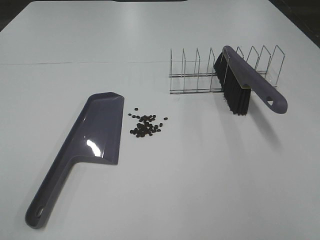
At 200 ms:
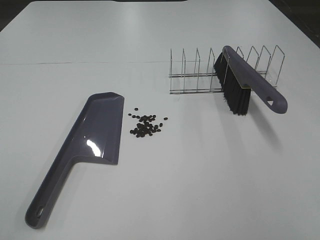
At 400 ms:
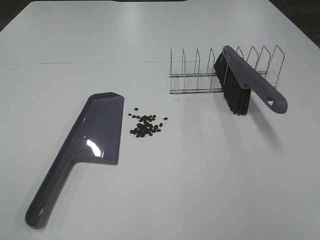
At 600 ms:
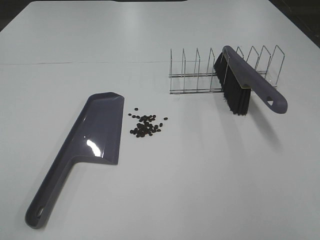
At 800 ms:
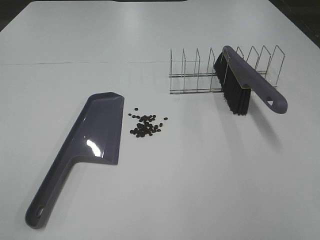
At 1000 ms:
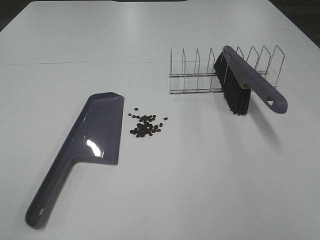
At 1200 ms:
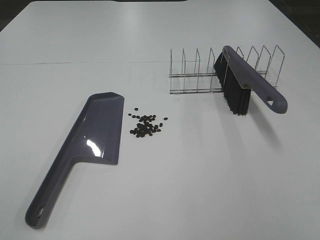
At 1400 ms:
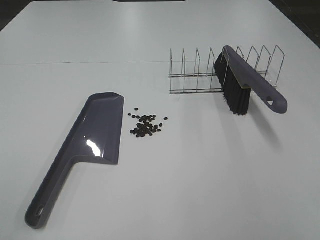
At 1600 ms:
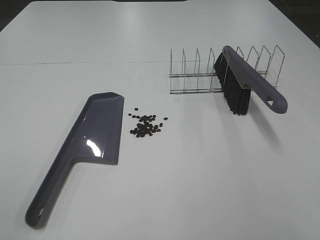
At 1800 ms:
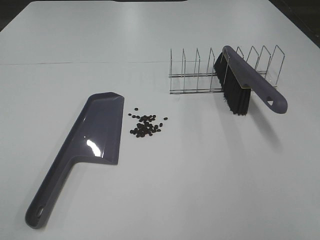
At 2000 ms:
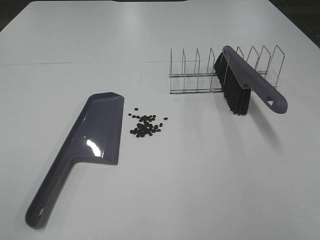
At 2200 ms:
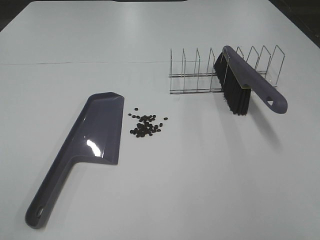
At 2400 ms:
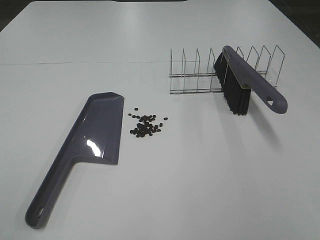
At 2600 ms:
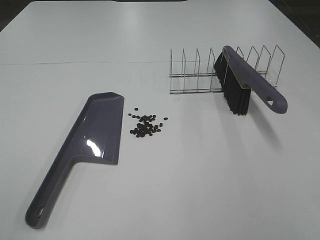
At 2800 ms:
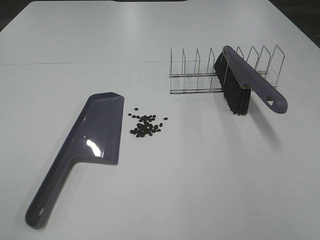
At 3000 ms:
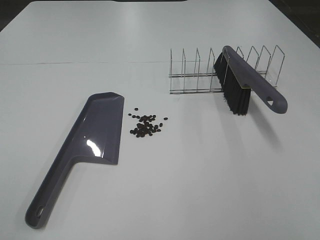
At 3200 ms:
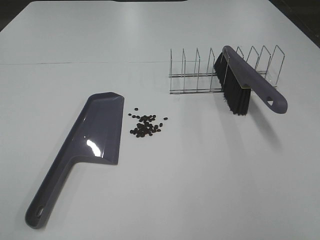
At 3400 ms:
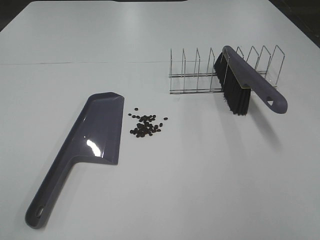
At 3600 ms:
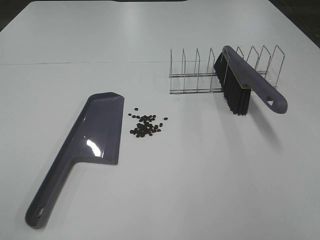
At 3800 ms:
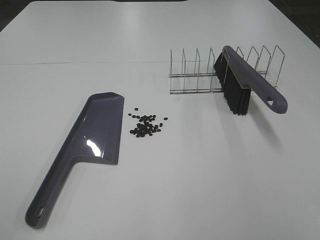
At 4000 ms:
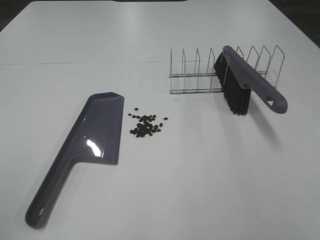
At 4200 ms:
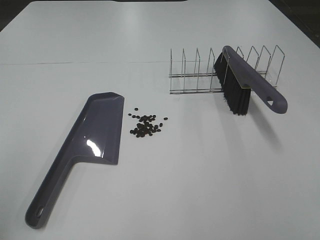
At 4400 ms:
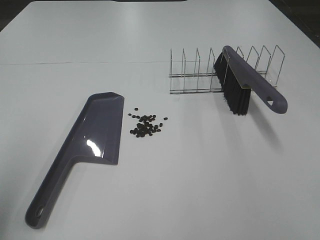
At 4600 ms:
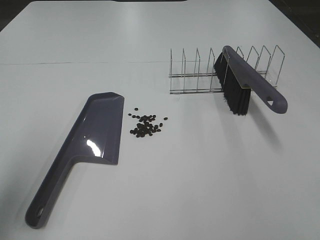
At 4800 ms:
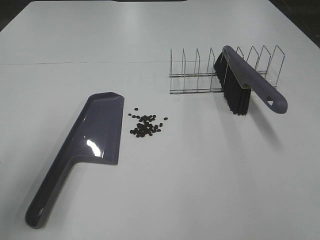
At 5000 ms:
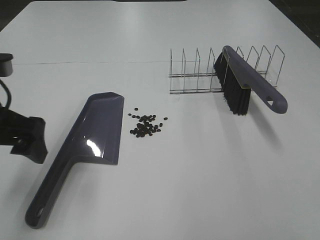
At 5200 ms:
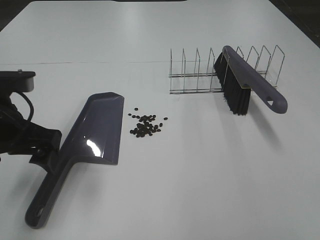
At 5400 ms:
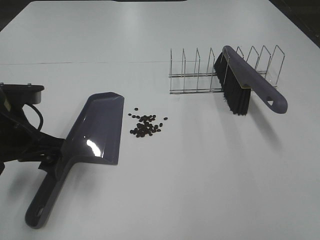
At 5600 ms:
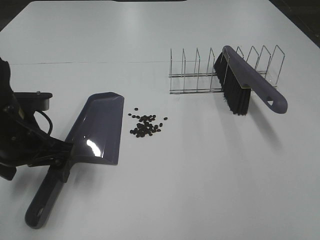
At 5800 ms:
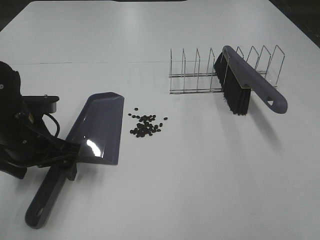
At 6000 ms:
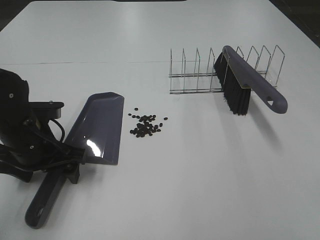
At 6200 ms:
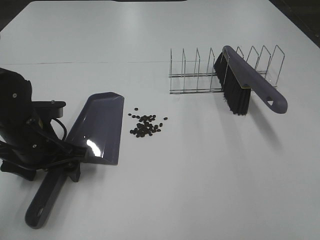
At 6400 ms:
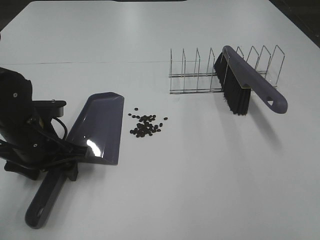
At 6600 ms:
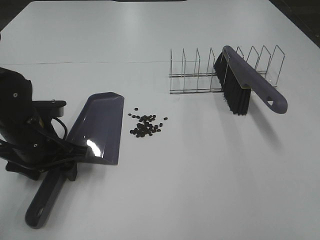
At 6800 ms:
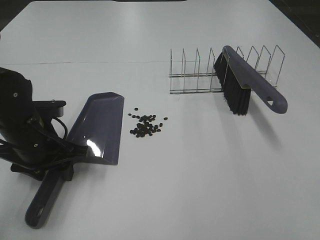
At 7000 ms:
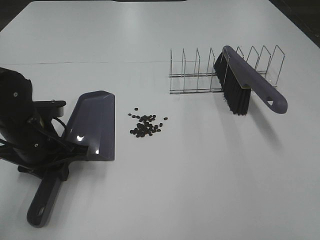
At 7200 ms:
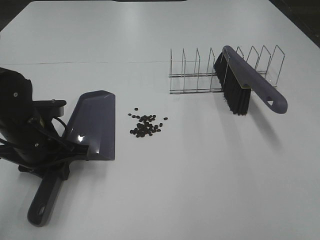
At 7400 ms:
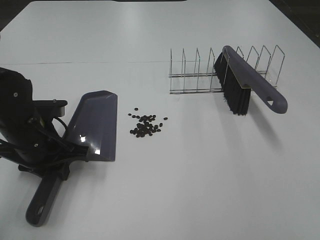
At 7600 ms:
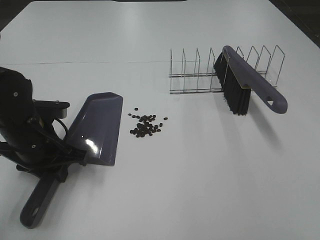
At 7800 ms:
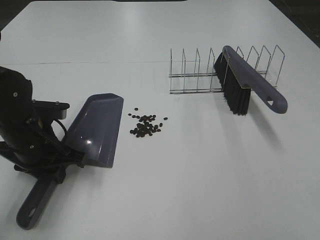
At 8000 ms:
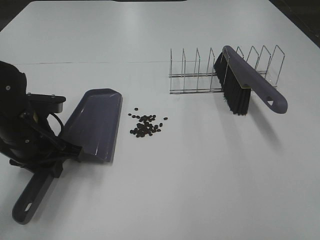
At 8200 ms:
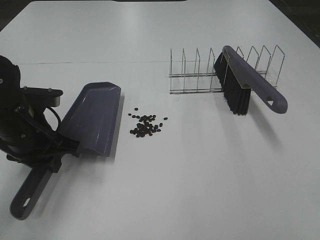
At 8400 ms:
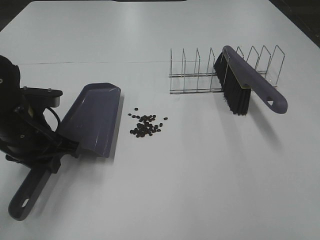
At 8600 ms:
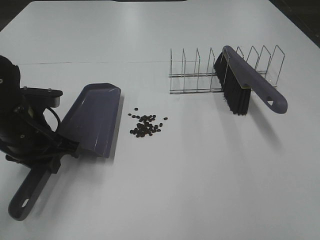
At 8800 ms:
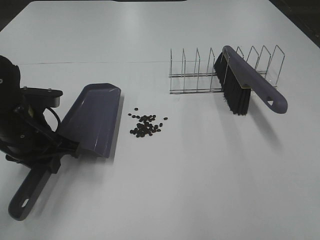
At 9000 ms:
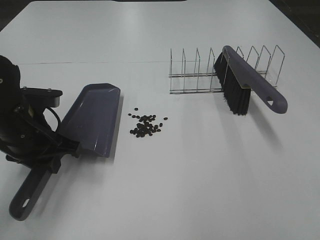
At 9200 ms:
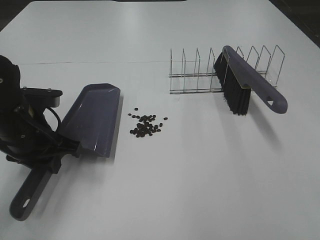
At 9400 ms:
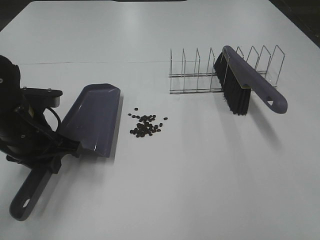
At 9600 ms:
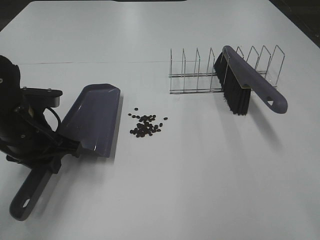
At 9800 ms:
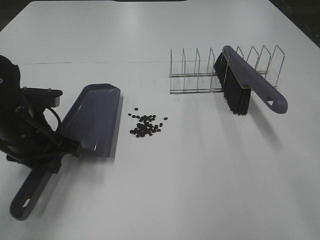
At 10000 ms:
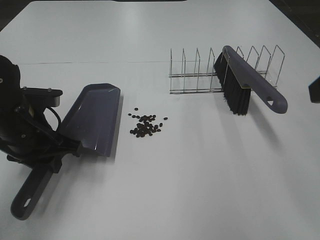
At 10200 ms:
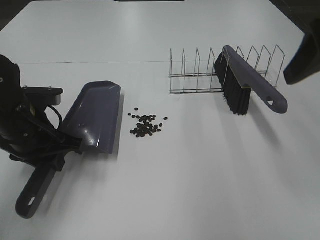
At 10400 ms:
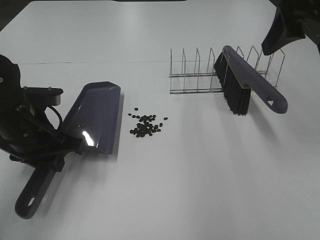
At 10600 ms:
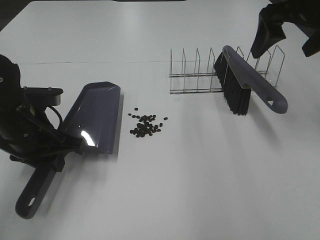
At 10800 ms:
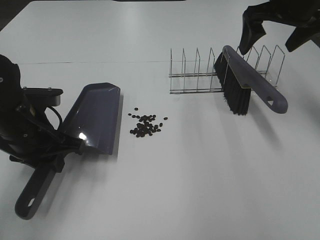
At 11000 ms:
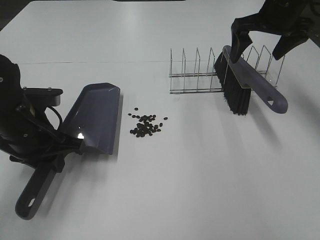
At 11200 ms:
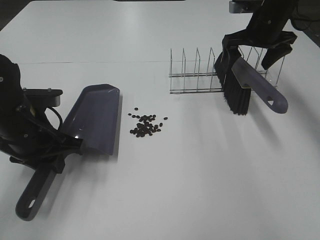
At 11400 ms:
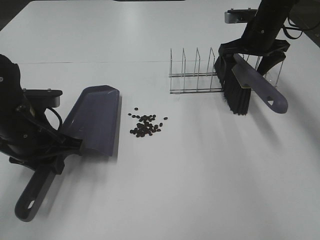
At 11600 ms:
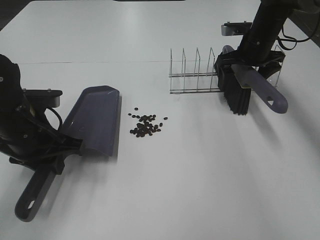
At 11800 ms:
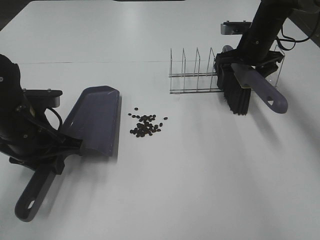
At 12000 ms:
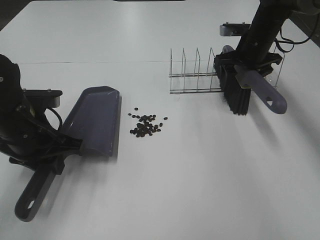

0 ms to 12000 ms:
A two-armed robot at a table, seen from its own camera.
Task of the whole recording: Sweep Coffee Bean.
Step, 0 ms to 7400 ms: Left hand: grab the dustpan.
0 ms to 3000 ms: Neither gripper changes place.
3000 ms to 4400 ms: The left gripper is displaced forward by roughly 15 cm.
4400 ms to 6000 ms: The left gripper goes about 25 cm downward, forward and to the right.
6000 ms to 7600 ms: The left gripper closes its fingers.
9000 ms to 10400 ms: The right gripper moves forward, roughly 30 cm.
10400 ms to 12000 ms: The right gripper moves forward and downward, approximately 25 cm, and closes up.

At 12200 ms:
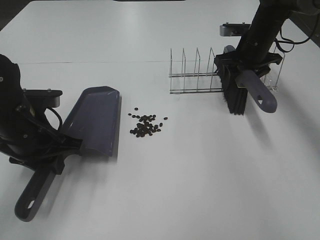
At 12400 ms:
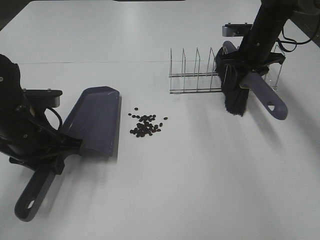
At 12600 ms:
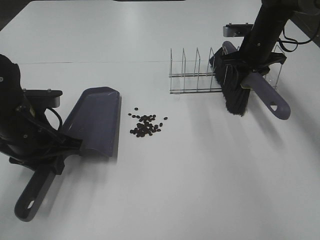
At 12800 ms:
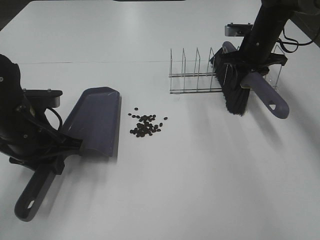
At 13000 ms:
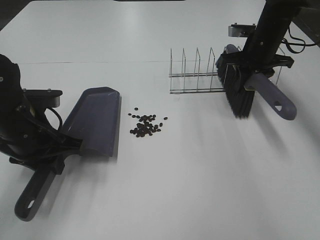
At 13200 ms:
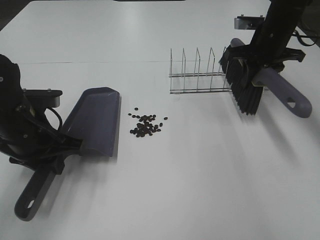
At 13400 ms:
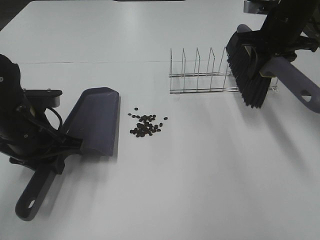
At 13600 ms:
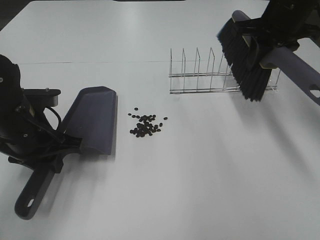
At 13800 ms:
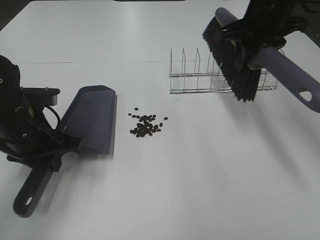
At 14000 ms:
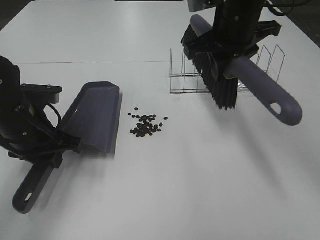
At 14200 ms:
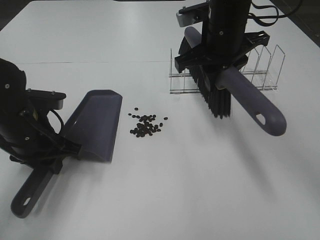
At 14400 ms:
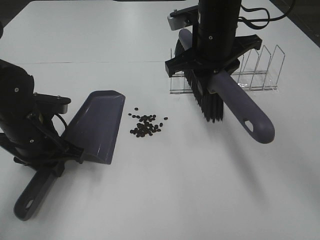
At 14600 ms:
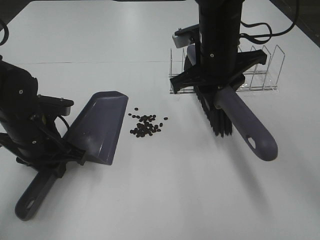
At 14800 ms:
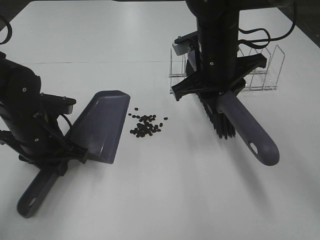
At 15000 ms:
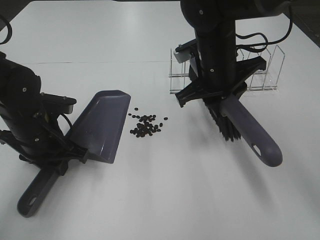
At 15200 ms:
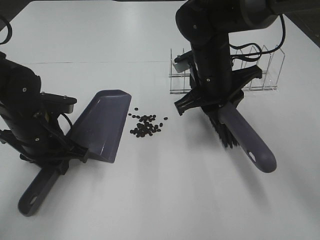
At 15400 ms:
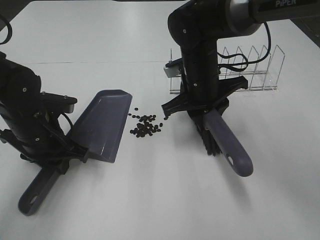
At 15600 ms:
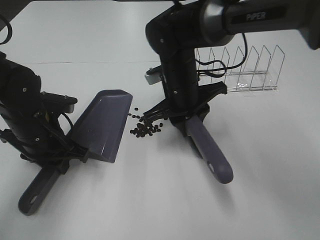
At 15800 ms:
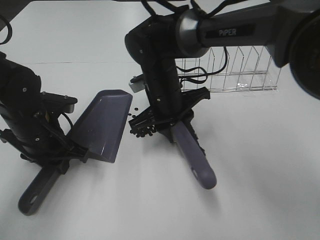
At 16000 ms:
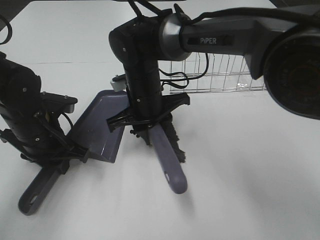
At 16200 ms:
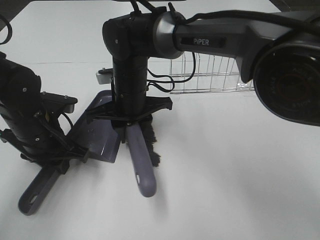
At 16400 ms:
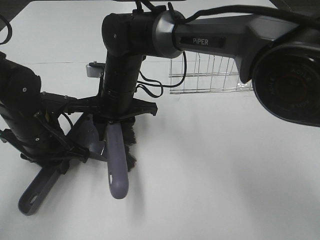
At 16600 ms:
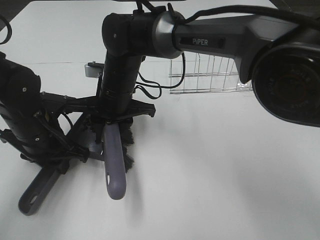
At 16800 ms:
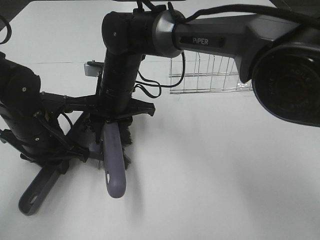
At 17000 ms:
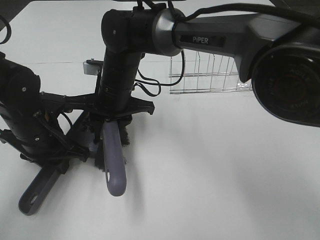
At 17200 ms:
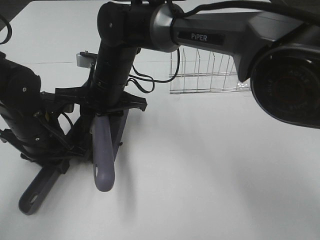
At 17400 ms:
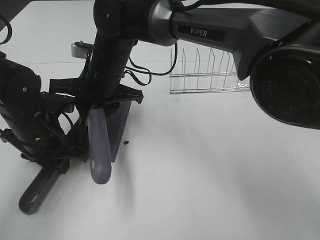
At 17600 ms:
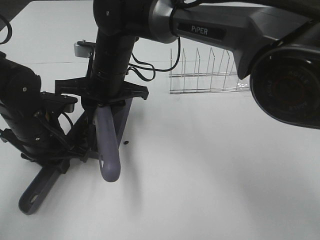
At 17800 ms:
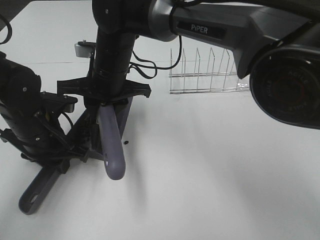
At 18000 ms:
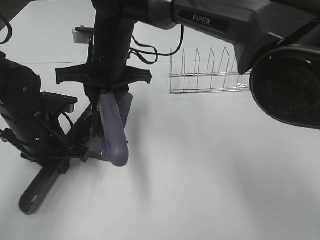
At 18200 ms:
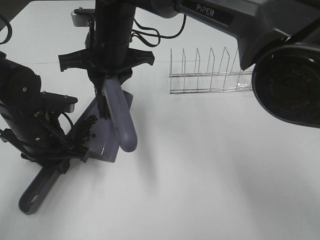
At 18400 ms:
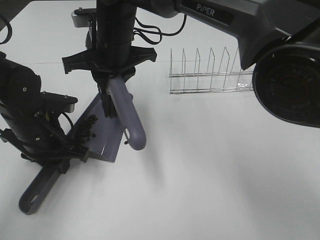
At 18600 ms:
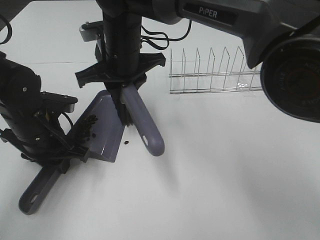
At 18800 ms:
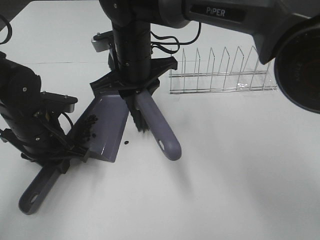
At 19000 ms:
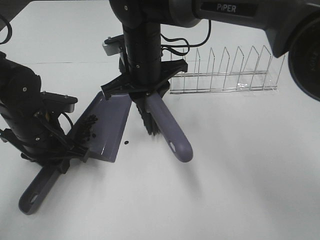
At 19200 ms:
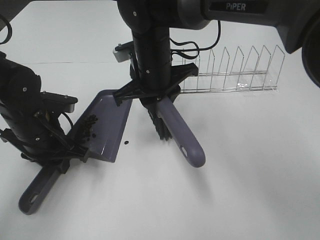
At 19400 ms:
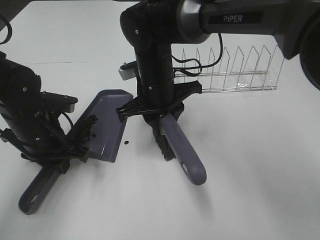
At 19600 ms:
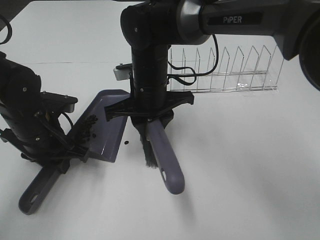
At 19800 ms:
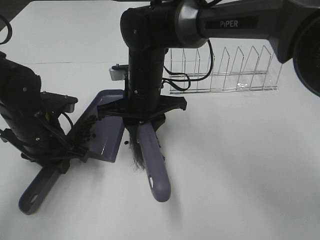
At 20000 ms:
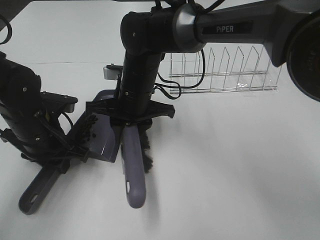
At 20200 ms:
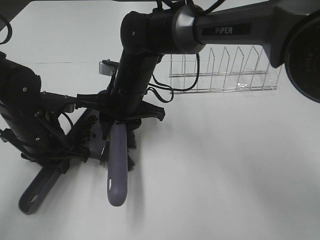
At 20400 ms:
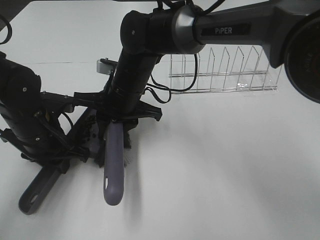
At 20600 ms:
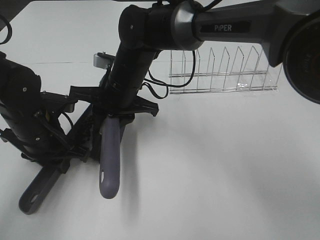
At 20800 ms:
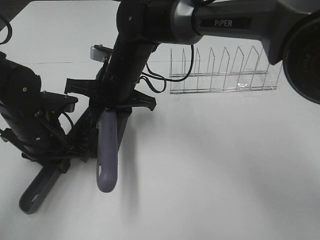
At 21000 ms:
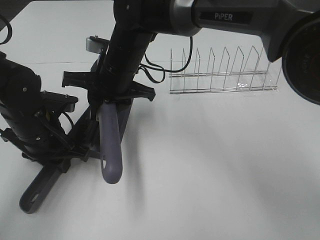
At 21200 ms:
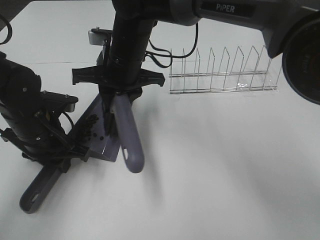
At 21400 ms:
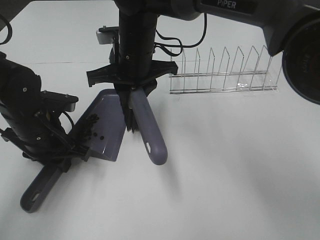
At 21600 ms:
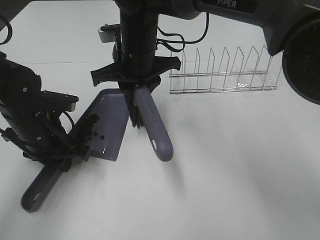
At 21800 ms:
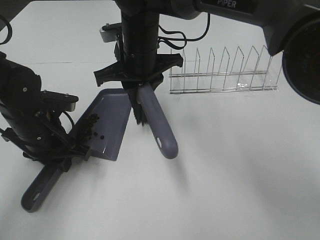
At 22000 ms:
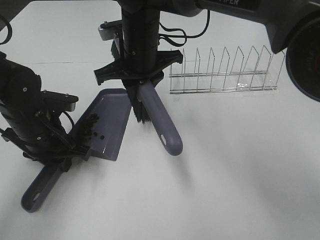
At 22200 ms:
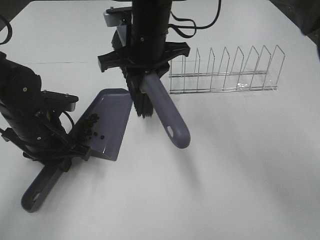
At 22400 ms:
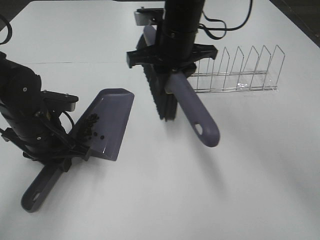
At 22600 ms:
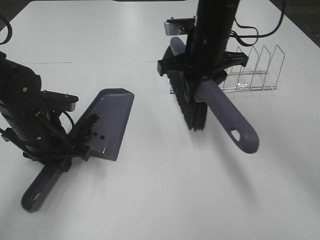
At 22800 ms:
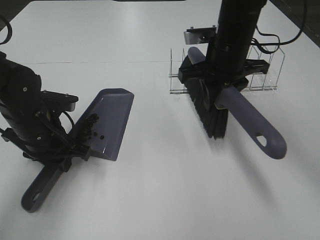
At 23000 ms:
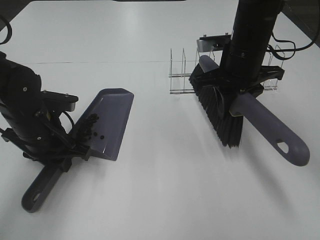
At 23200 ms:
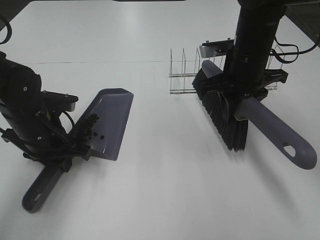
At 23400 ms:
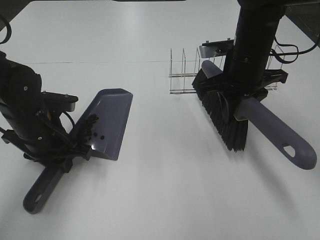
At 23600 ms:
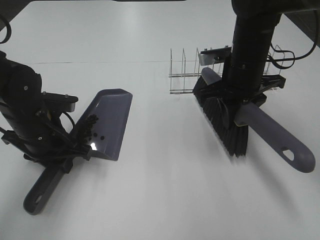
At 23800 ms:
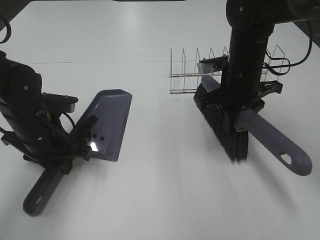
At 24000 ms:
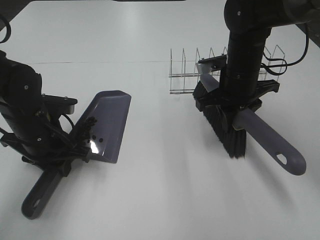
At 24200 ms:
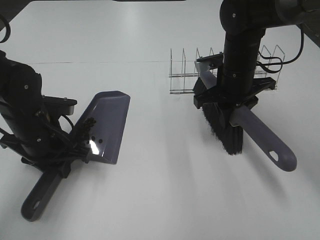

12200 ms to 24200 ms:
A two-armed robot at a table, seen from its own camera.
Task of the whole recording: Sweep Coffee Bean.
Step, 13000 ms to 21800 ms: Right hand:sweep the coffee beans into the dustpan.
12200 ms to 13800 ms: The right gripper moves upward, backward and to the left, roughly 15 cm.
13800 ms to 15200 ms: The right gripper shifts roughly 15 cm downward and to the left.
15200 ms to 16600 ms: The right gripper is displaced to the left by about 15 cm.
16600 ms to 18200 ms: The right gripper heads upward, covering some 10 cm.
18200 ms to 19800 ms: The right gripper is displaced downward and to the right by roughly 10 cm.
19800 ms to 21200 ms: The right gripper travels upward by some 5 cm.
21200 ms to 22600 ms: The right gripper shifts approximately 15 cm to the right.
22600 ms to 24200 ms: The right gripper goes roughly 10 cm downward and to the right.
